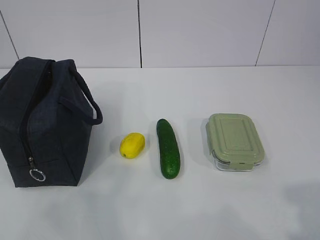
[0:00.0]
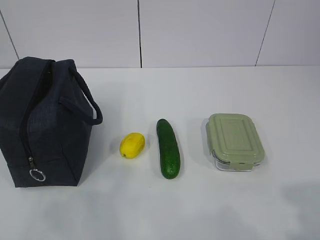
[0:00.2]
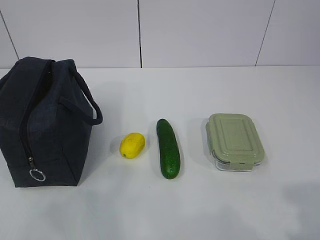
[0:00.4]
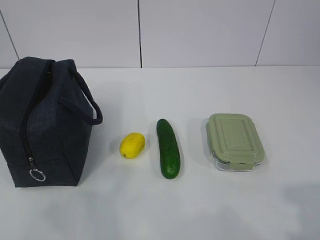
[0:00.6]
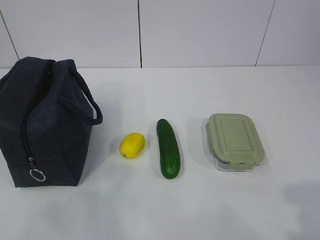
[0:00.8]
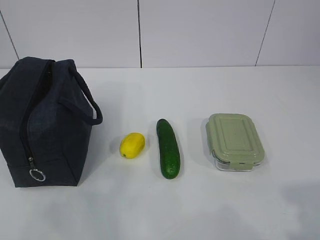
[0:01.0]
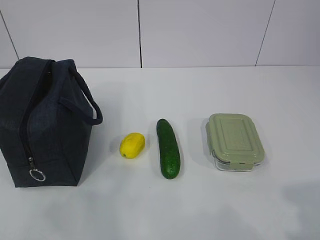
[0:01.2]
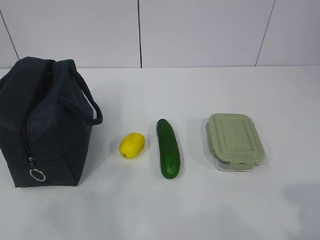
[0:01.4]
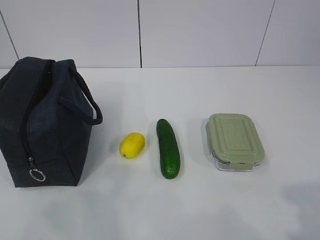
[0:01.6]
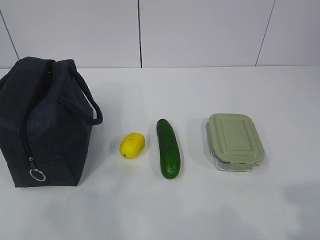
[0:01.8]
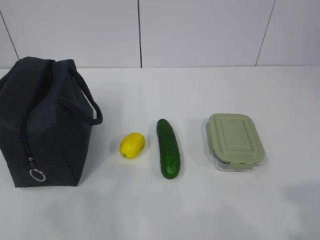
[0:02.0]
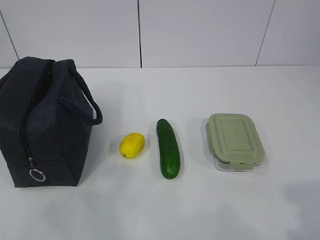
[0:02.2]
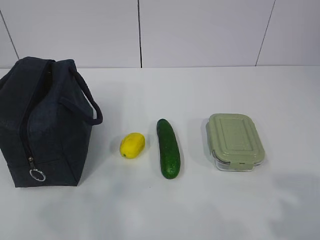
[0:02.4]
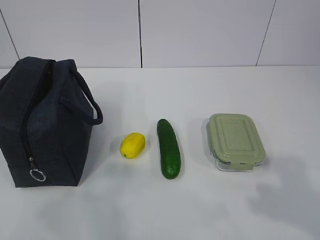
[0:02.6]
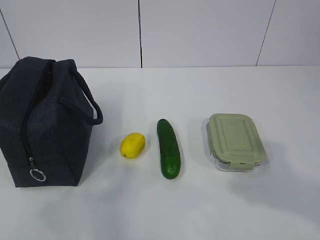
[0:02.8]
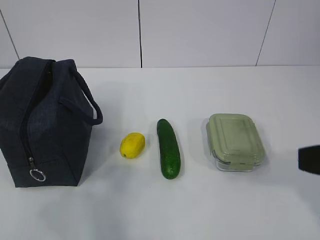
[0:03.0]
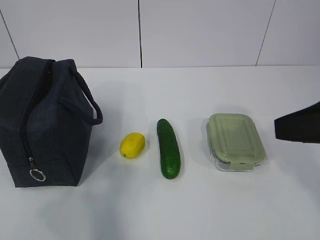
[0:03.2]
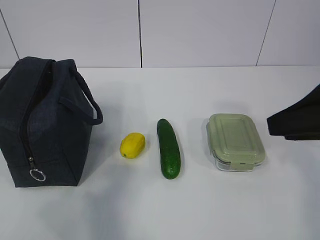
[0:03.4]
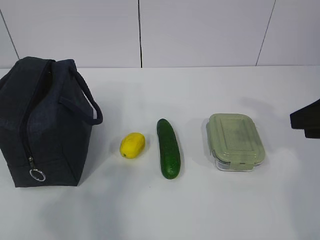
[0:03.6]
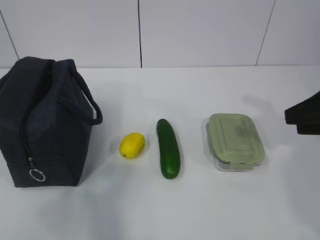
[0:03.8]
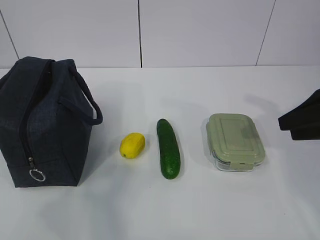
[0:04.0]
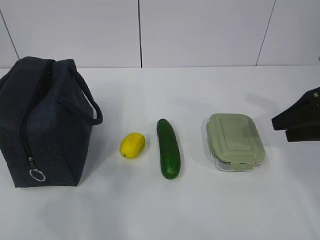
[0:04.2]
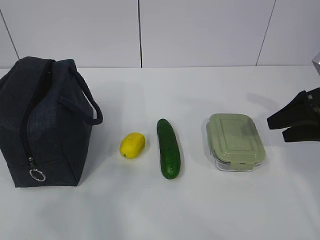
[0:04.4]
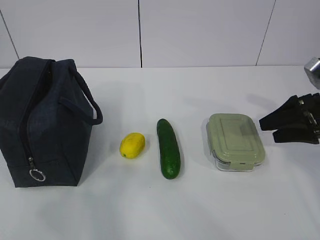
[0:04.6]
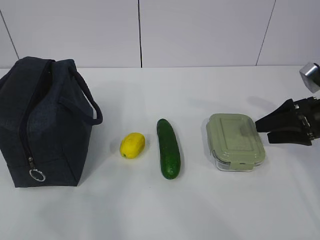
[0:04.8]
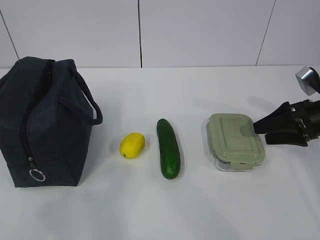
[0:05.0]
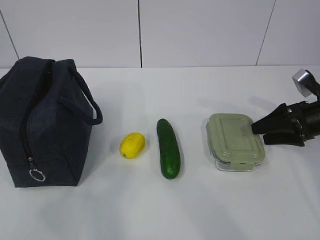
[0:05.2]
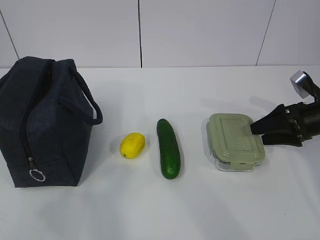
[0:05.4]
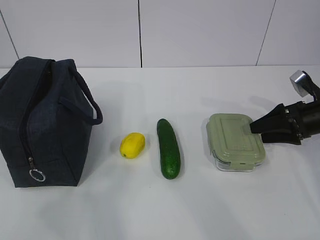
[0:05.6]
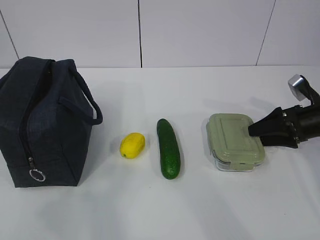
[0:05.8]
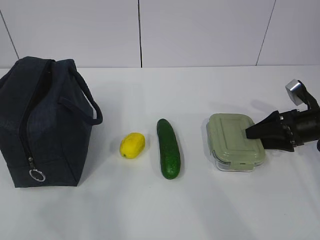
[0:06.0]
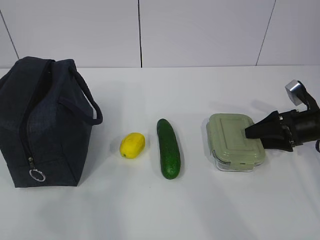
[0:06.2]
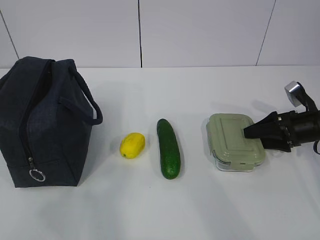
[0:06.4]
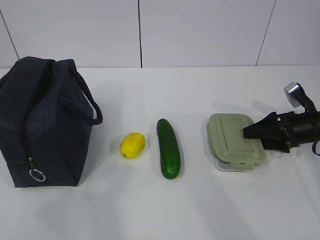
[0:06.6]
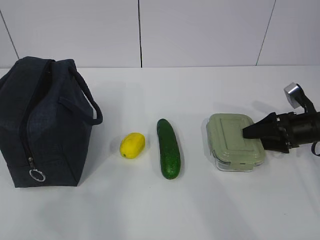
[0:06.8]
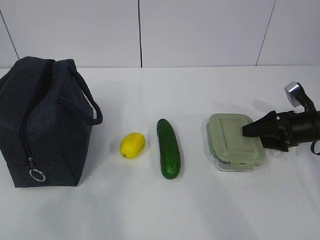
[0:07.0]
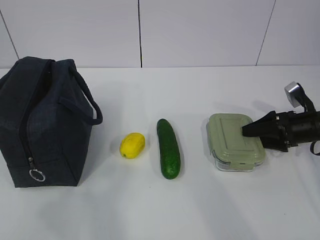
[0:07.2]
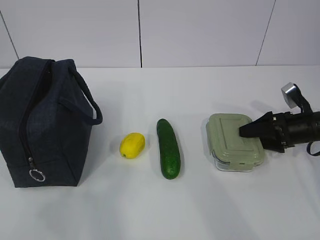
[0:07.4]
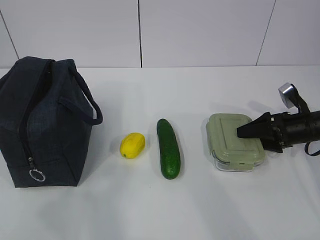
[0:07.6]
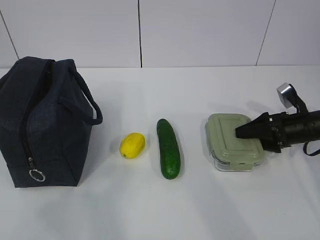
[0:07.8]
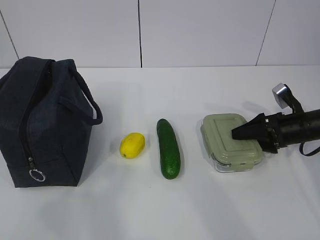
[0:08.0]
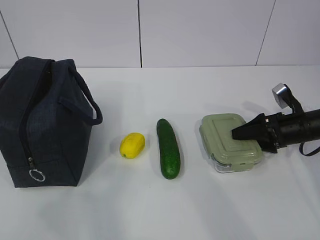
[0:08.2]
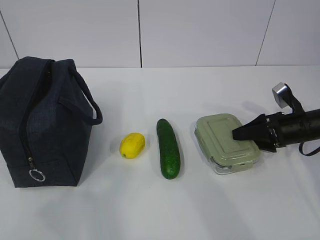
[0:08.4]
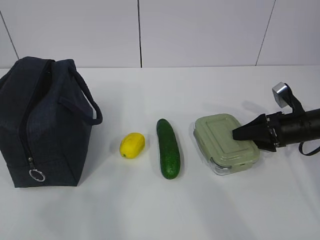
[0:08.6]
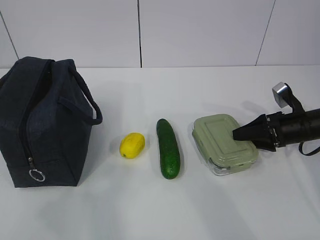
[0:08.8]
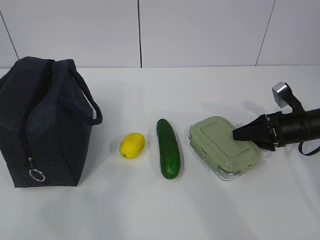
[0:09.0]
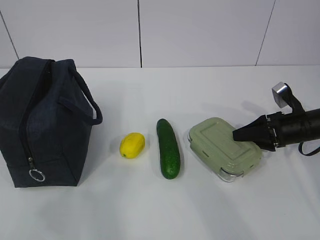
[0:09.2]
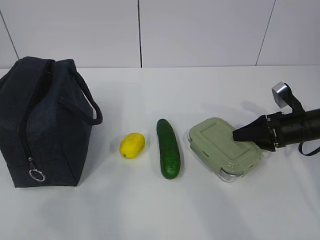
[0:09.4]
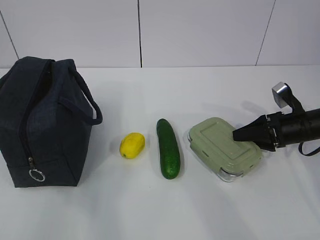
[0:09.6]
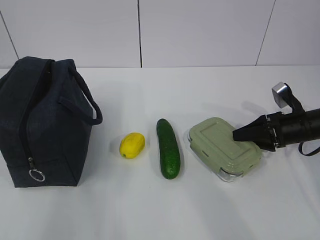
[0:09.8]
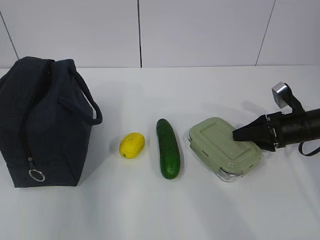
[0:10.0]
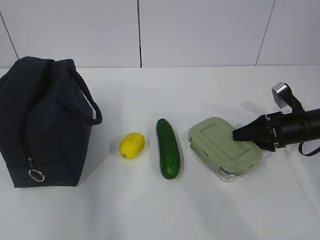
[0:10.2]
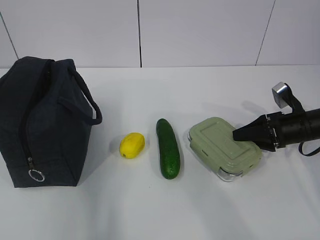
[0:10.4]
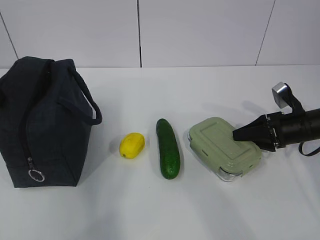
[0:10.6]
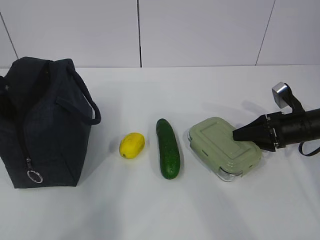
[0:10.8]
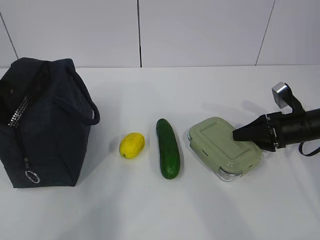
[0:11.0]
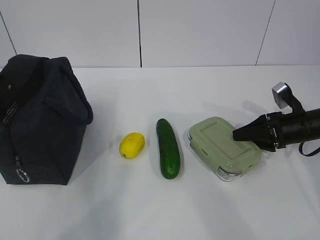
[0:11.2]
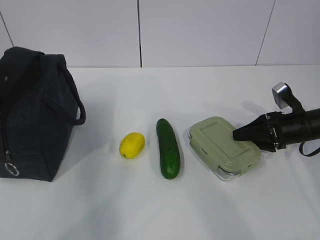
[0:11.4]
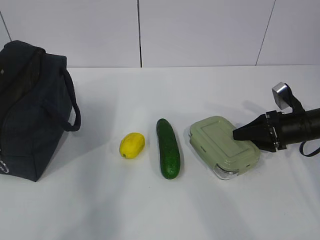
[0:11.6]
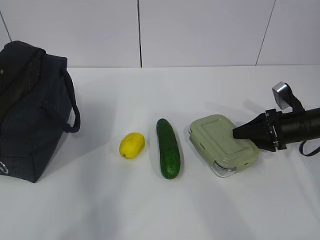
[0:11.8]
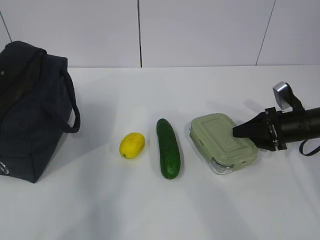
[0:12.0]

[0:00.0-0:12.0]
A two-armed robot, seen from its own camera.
Step, 0:00.0 to 0:10.0: Grab the lunch box with your right hand.
0:01.6 to 0:03.0: The right gripper is displaced forward and to the left by approximately 15 cm.
0:03.0 to 0:04.4: The right gripper is displaced forward, downward and to the right by roughly 25 cm, and opens up.
0:04.4 to 0:06.0: The right gripper goes approximately 10 cm downward and forward.
0:06.0 to 0:07.6: The grippers move only a little.
0:07.6 to 0:09.0: The right gripper closes.
0:09.0 to 0:10.4: The left gripper is displaced forward by roughly 25 cm, and opens up.
0:10.4 to 0:12.0: The left gripper travels forward by about 5 cm, and closes.

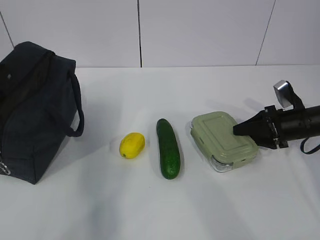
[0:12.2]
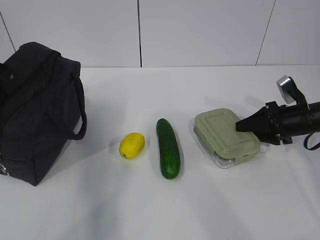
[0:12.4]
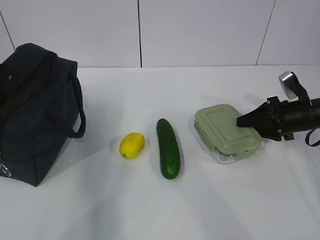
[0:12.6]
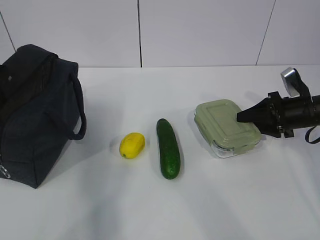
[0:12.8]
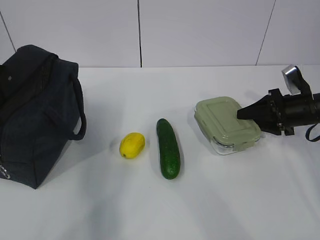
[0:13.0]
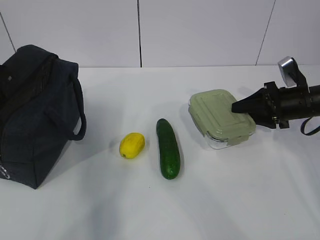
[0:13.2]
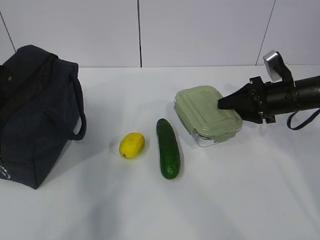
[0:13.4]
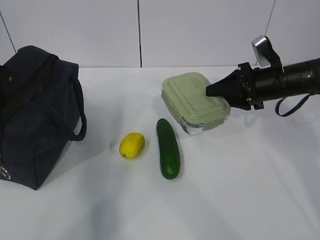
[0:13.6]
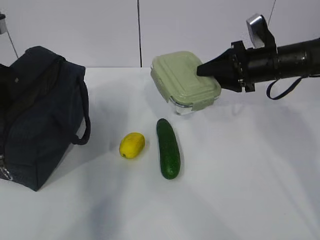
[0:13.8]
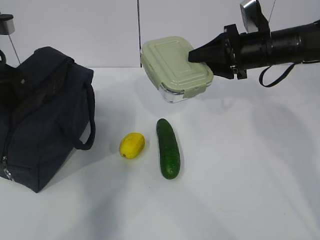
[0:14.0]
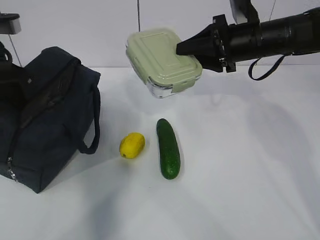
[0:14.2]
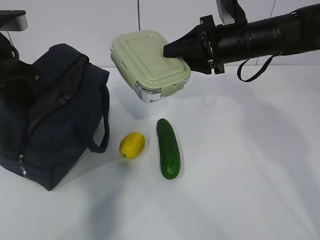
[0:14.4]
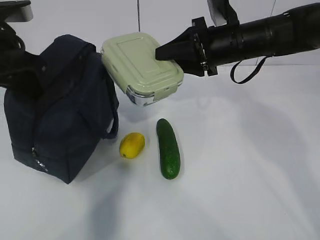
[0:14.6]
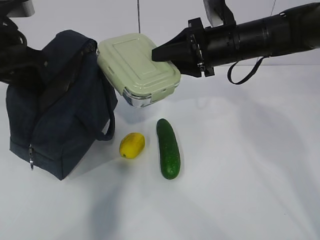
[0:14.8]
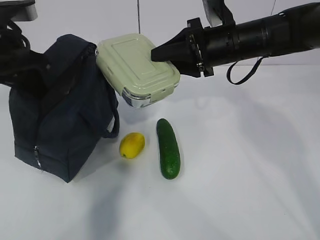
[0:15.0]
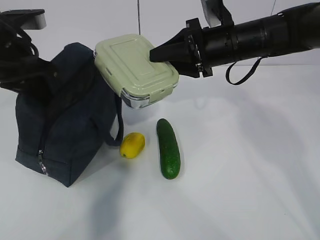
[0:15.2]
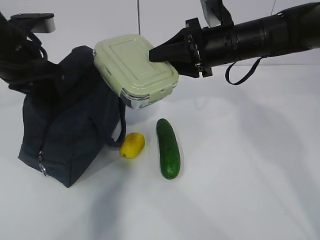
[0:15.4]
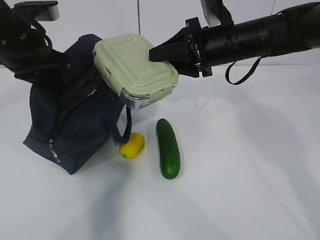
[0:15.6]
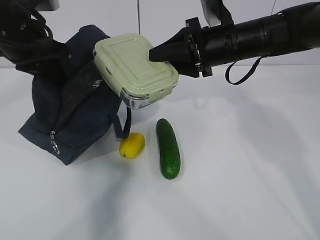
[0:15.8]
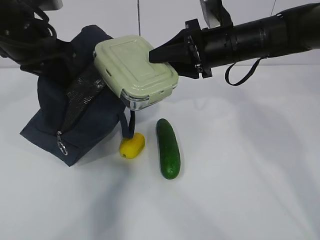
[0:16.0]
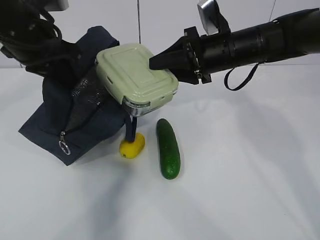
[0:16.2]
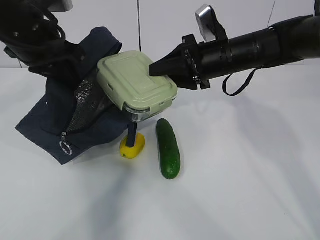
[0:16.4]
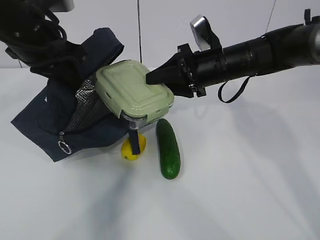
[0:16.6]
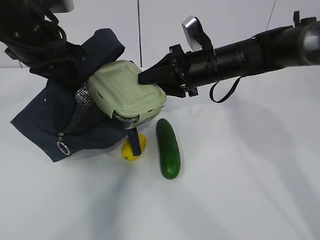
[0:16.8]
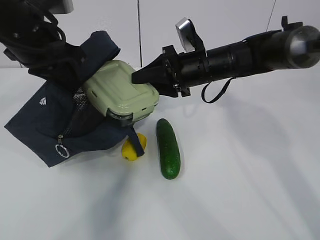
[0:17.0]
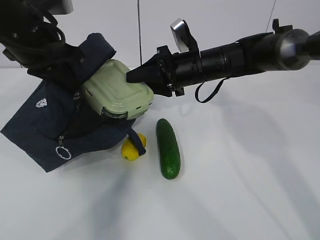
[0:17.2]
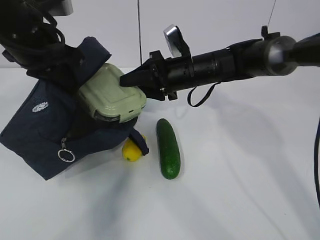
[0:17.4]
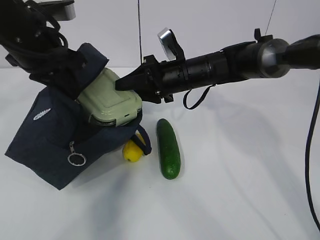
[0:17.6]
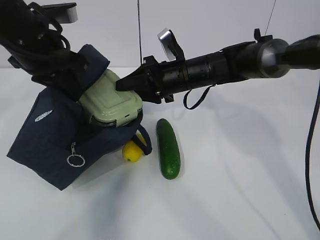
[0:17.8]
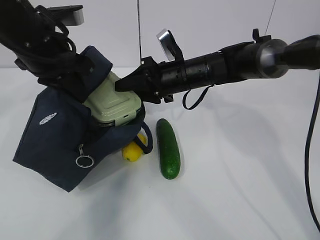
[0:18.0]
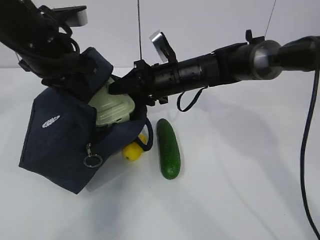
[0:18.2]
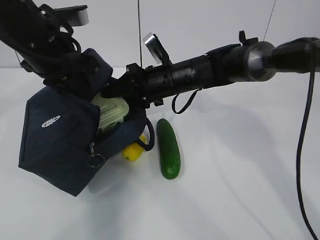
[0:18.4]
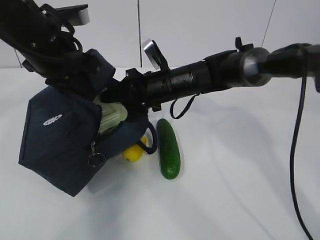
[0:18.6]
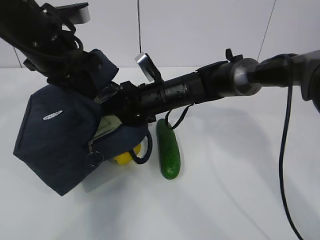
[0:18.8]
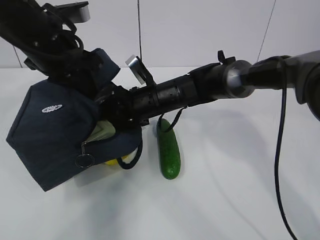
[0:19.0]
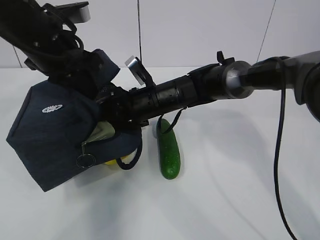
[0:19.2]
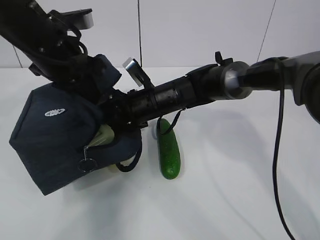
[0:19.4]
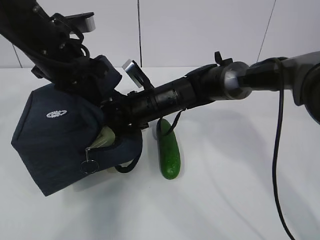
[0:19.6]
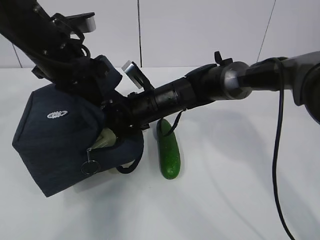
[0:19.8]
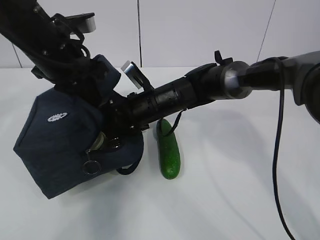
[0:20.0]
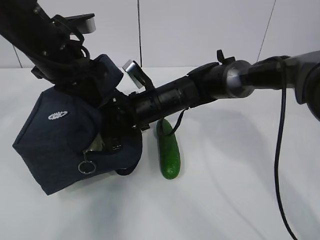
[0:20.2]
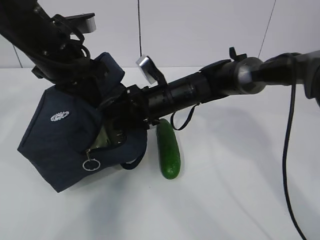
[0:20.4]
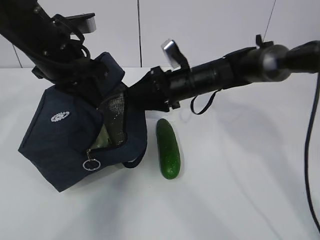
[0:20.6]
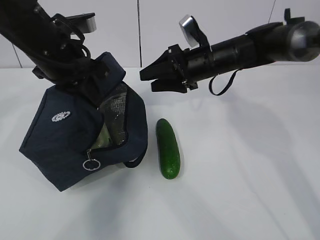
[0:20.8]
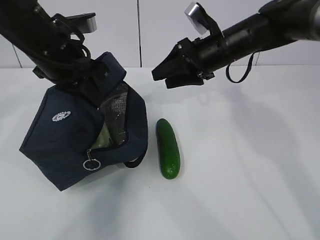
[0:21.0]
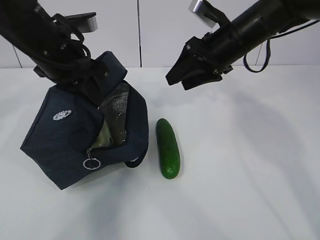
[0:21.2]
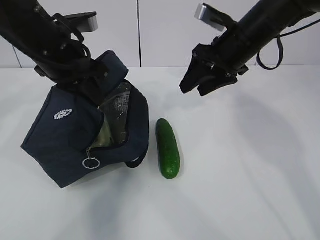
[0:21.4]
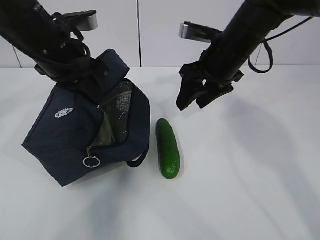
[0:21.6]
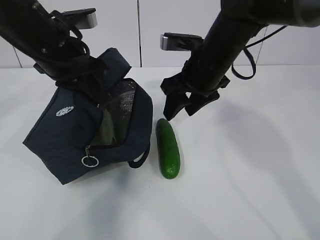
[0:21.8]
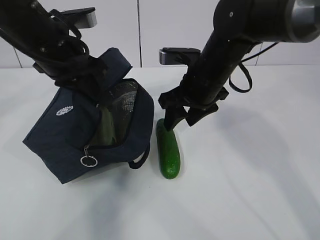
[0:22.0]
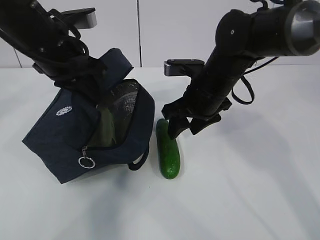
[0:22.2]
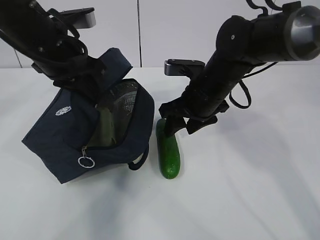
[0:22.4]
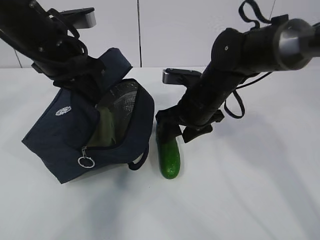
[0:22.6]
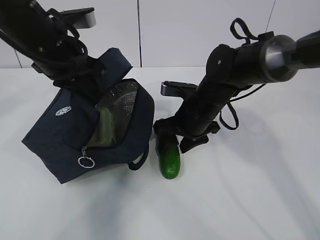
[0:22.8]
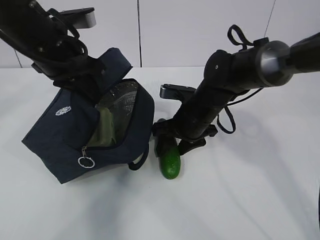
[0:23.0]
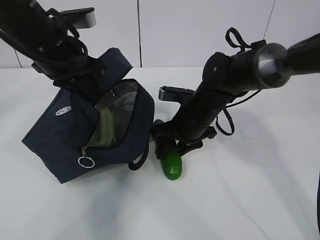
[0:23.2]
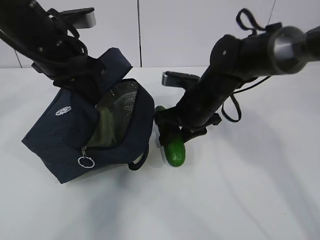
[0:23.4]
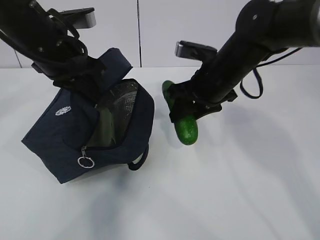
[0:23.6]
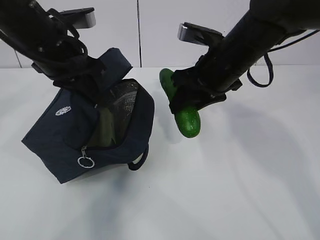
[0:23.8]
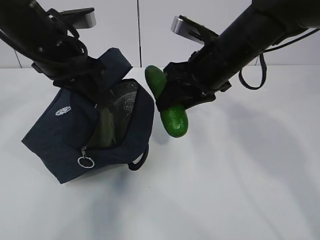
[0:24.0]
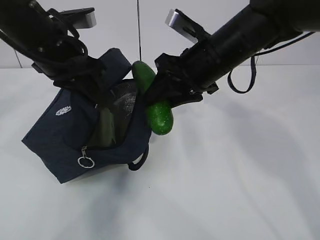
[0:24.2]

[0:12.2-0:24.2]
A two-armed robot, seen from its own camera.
Step, 0:13.0 to 0:16.8: Place it into the bag with your right hand.
Step, 0:17.0 to 0:19.2: Grab the cucumber with your right hand.
Step, 0:19.4 to 0:21.2: Place it into the bag with your right hand.
0:12.2 to 0:13.8: The right gripper goes approximately 15 cm upward and to the left.
0:13.8 to 0:15.2: The left gripper heads to the right, covering roughly 5 cm, while the right gripper travels to the left by some 10 cm.
0:16.6 to 0:18.2: The right gripper is displaced to the left by about 5 cm.
0:18.2 to 0:19.8: The right gripper moves roughly 5 cm.
0:19.8 to 0:21.2: The right gripper goes approximately 20 cm to the right and upward.
0:21.2 to 0:22.6: The right gripper goes about 10 cm downward and to the left.
0:22.6 to 0:24.2: The right gripper travels upward by about 10 cm.
